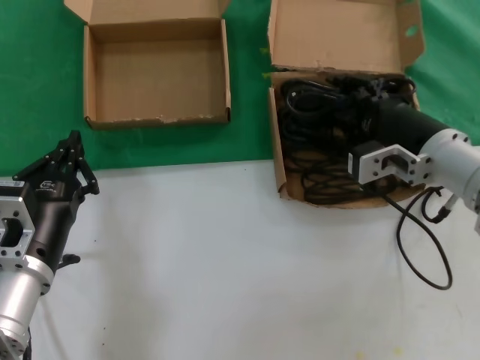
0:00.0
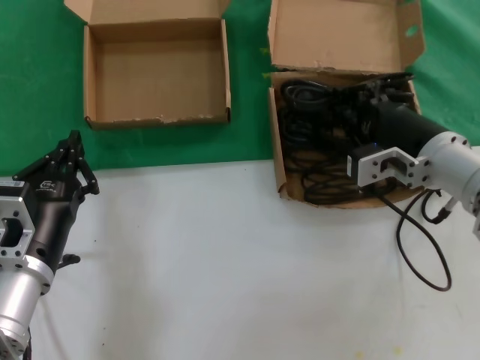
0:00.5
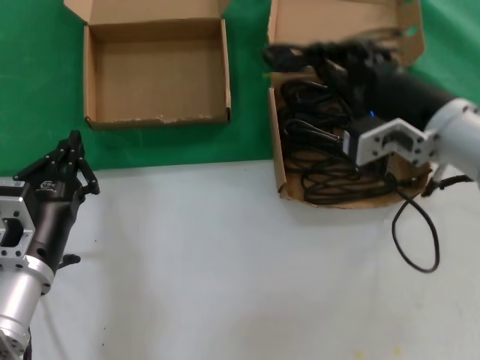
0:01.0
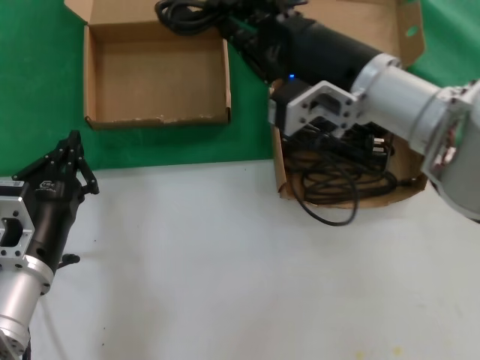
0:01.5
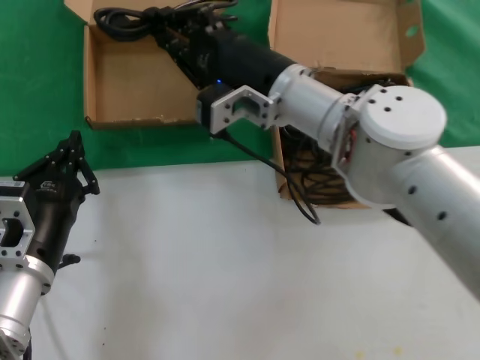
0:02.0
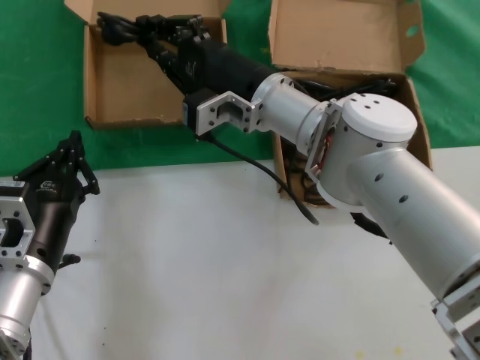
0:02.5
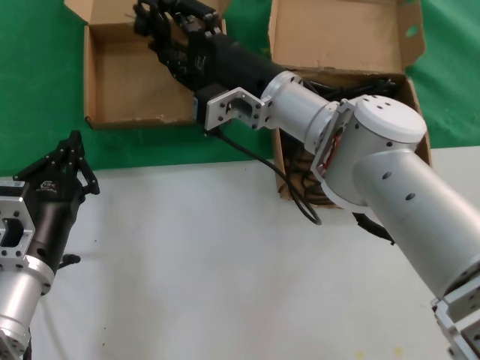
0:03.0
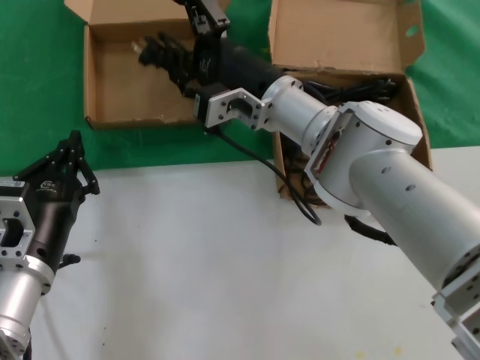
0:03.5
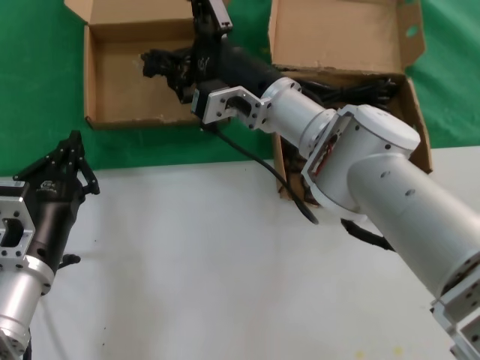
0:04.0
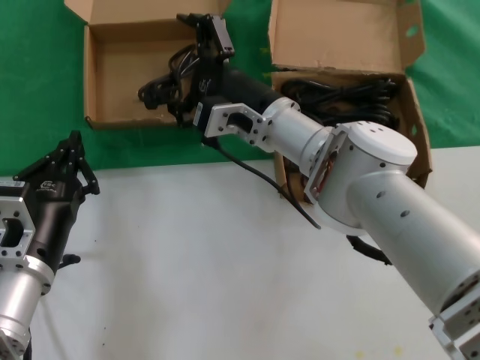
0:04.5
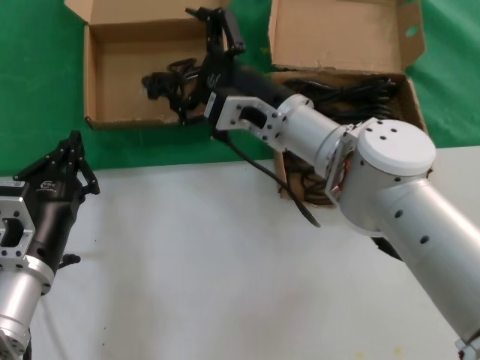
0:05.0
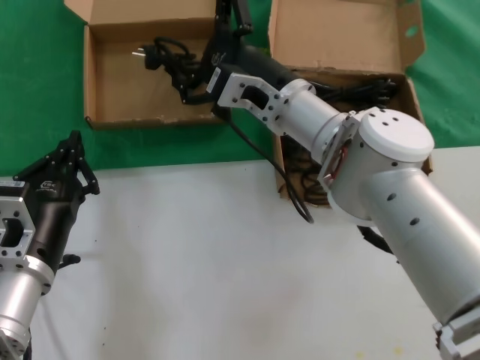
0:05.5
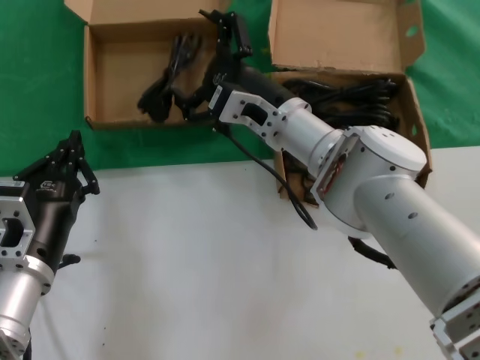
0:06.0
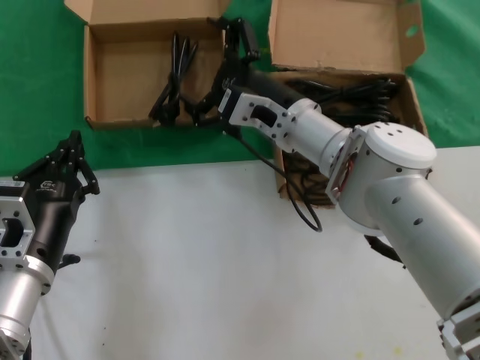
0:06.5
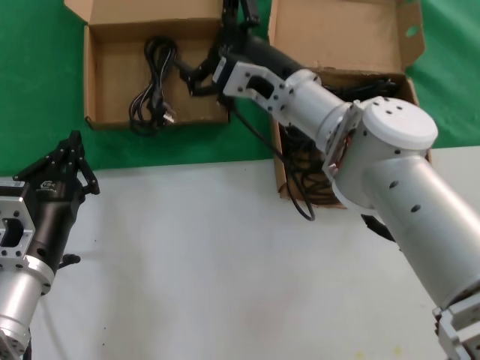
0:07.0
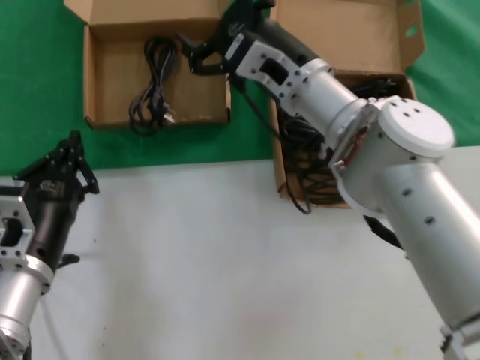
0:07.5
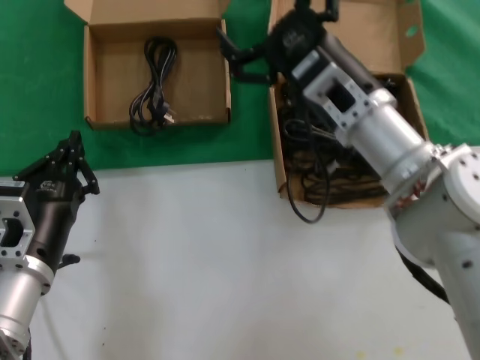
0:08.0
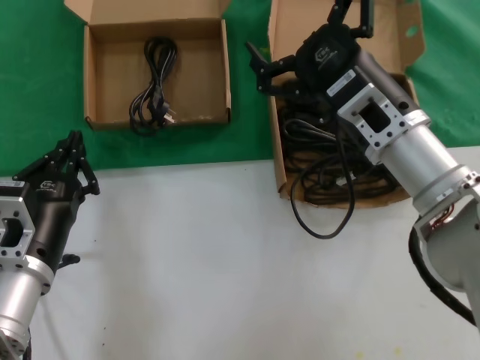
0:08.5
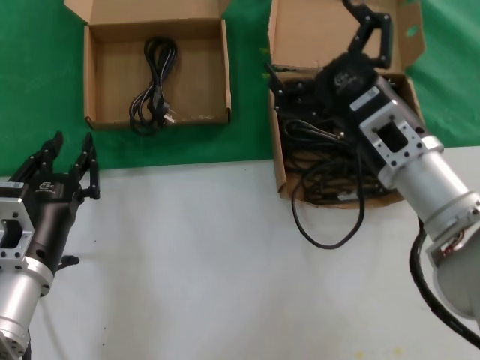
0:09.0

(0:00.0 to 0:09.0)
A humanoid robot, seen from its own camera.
Task of the whole recording: take the parts from the box containing them and put them into an empty box.
Step, 0:01.0 - 0:06.5: Place the data cable in the another box.
0:00.0 - 0:02.0: The right hand travels to the left by roughly 15 cm.
0:02.0 - 0:04.5: The right hand shifts some 5 cm downward.
0:04.5 - 0:07.0: There are only small adjustments of the hands.
0:07.0 - 0:09.0: The right hand moves backward and to the right, roughly 15 cm.

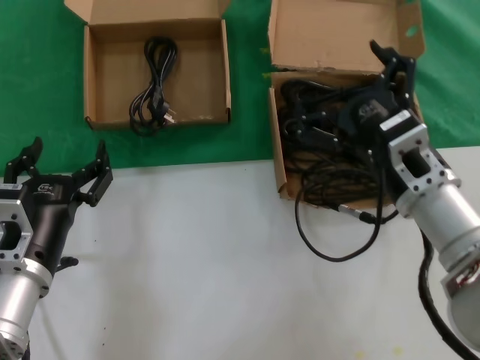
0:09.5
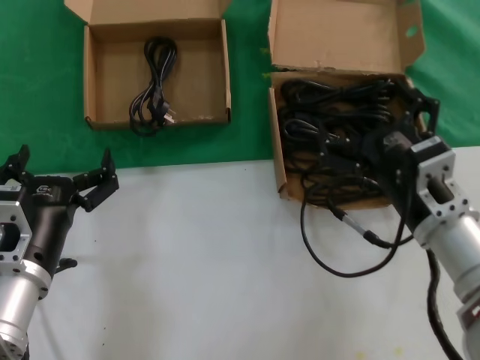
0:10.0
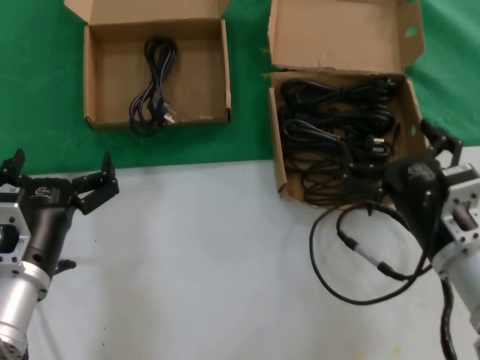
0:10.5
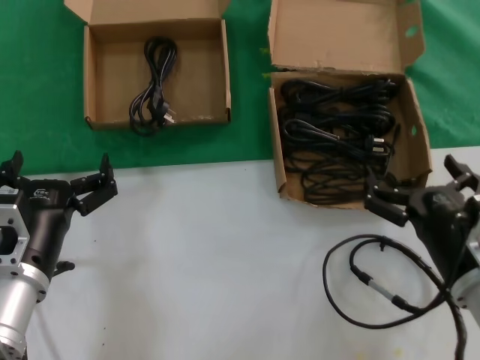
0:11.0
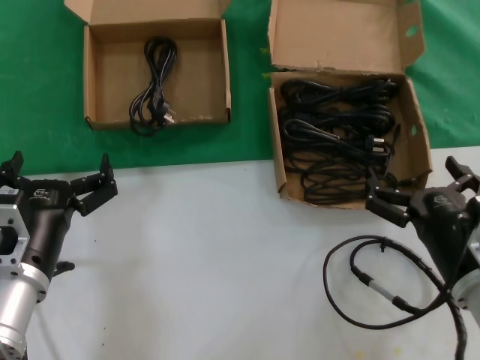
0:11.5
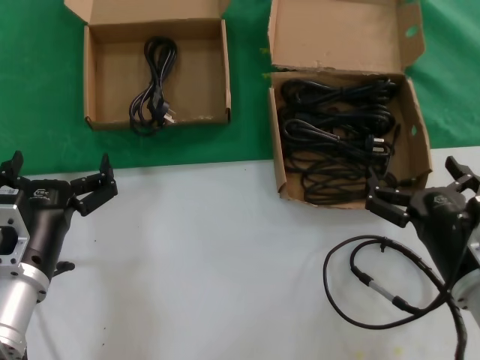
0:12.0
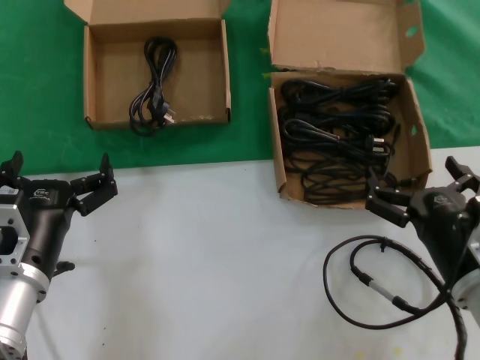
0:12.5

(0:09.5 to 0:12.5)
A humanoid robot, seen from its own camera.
Task of the whole recording: take the parts from the box containing them and put them into an empty box.
0:09.5 - 0:11.0: The right hand heads backward, downward and to the right, covering approximately 10 cm.
0:11.0 - 0:12.5: Both hands stay put.

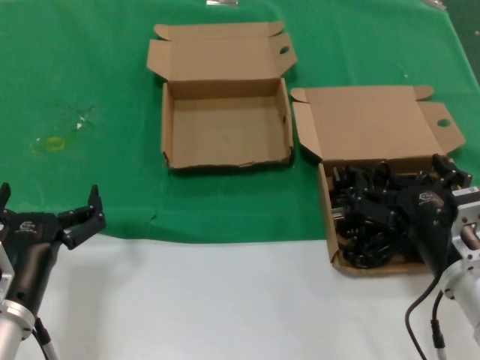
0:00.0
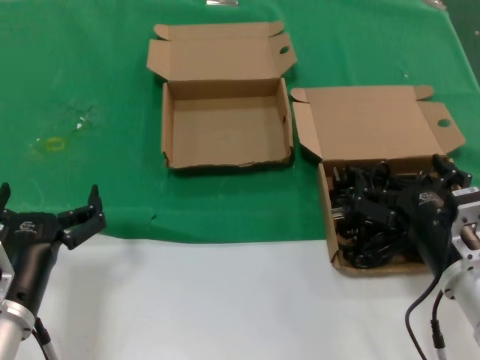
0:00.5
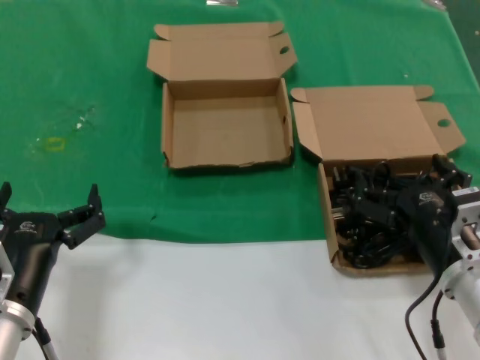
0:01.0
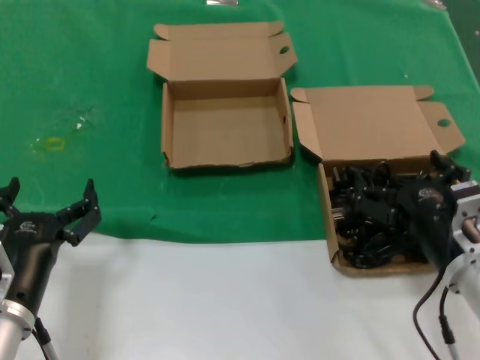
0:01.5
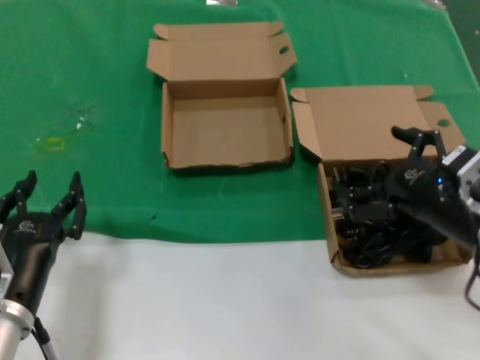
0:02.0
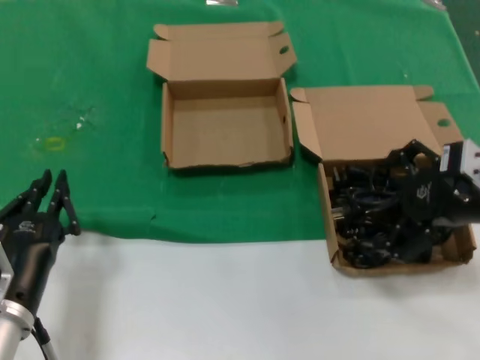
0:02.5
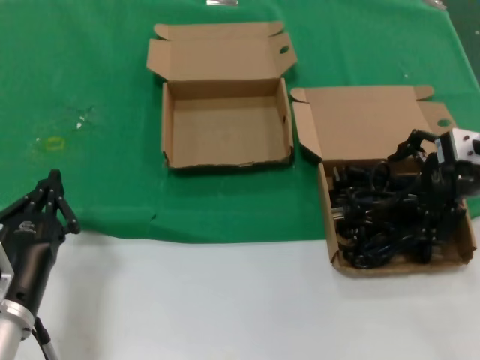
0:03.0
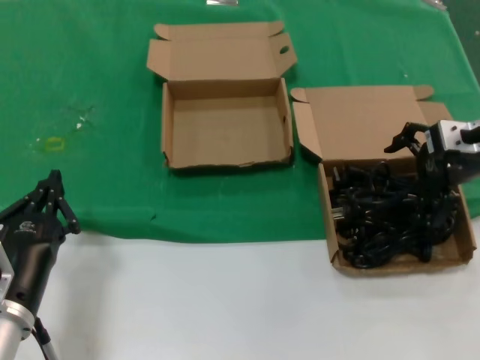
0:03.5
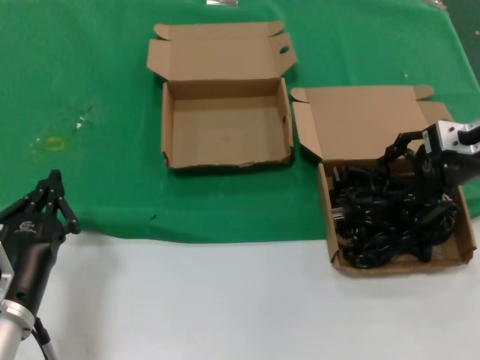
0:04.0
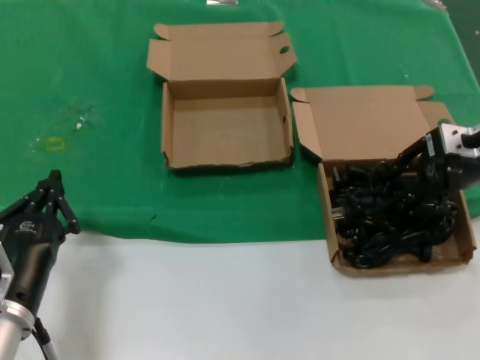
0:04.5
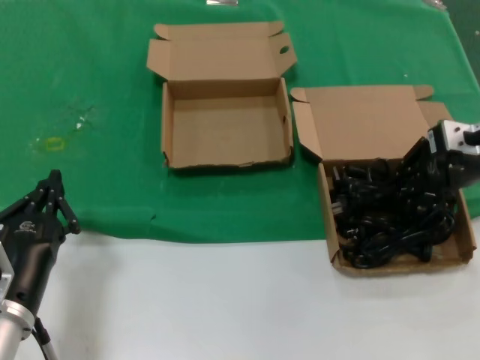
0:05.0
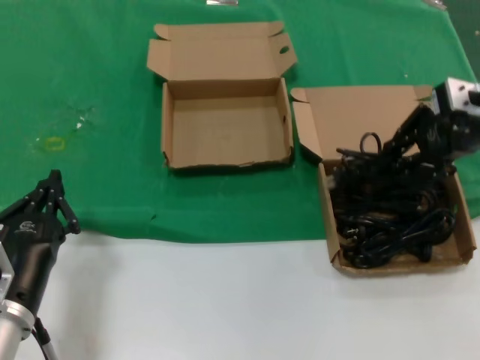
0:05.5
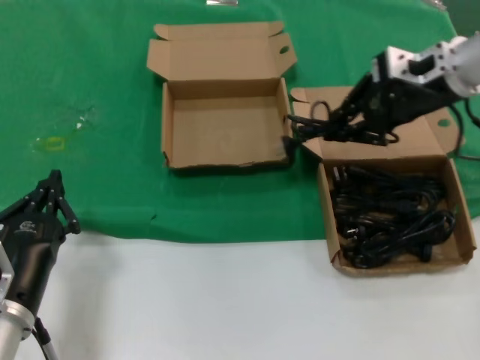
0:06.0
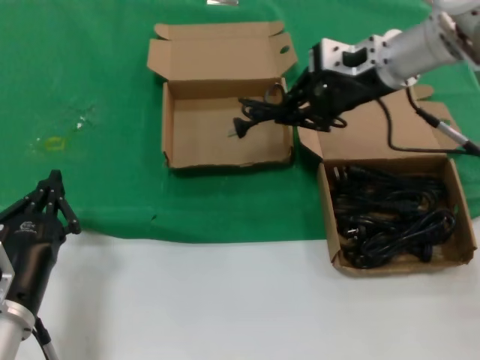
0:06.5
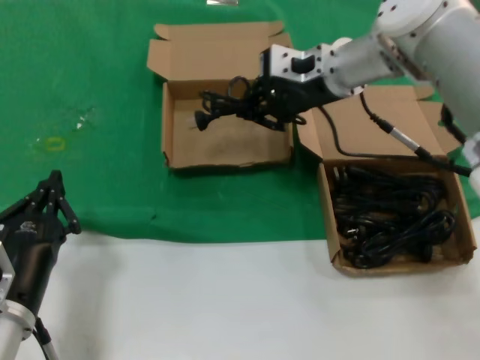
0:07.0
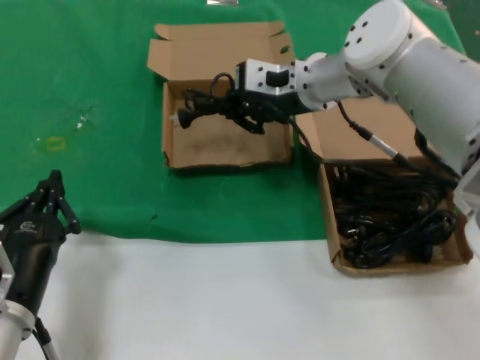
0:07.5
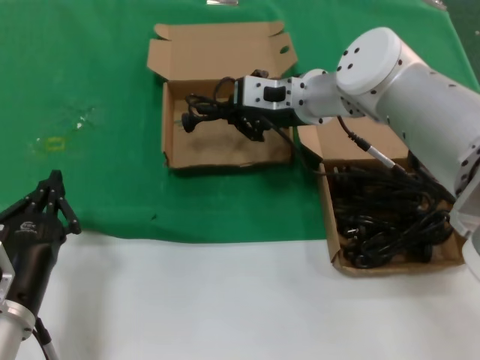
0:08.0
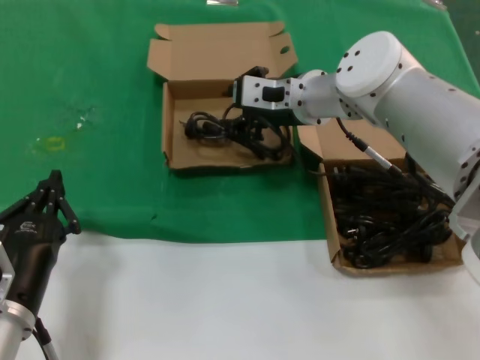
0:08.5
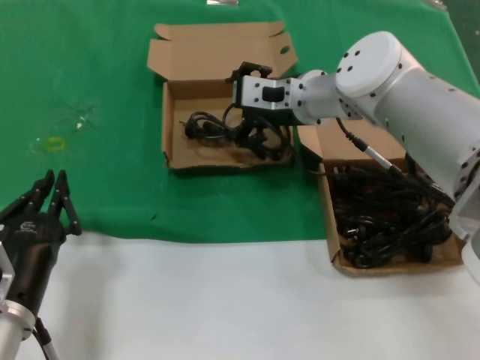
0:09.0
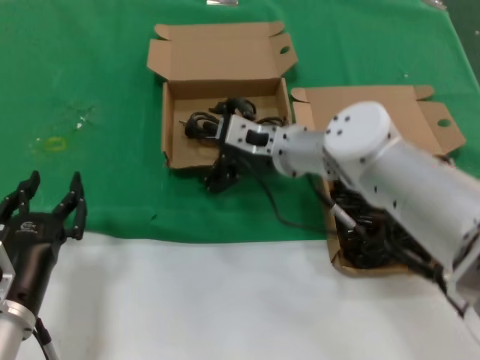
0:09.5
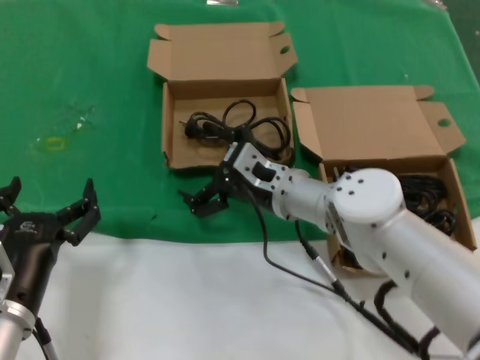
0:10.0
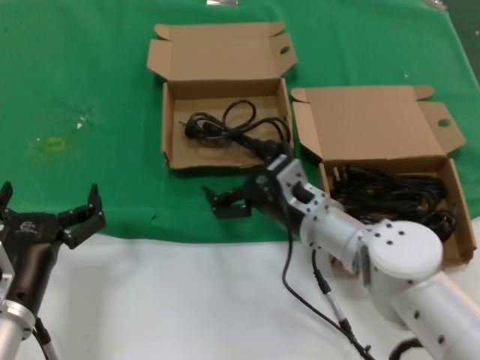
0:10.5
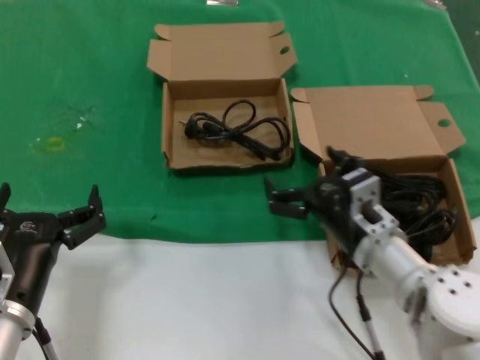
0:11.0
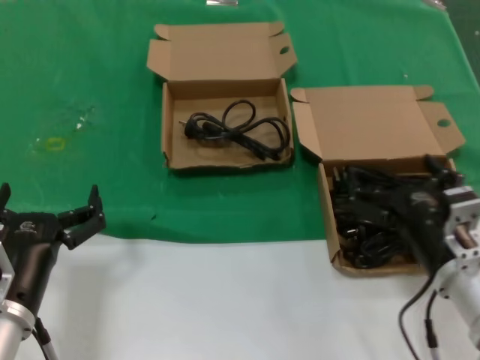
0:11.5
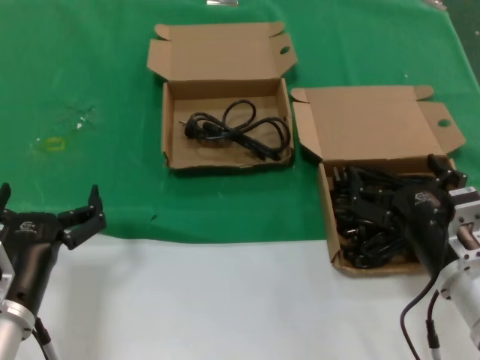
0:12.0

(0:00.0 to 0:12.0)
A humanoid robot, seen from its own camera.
Task of the whole recording: take the parts from the box containing them and put them into an empty box.
Step, 0:00.0 - 0:04.0: Grasp the data cable.
Step, 0:04.5 - 0:08.0: Place the data cable in the another box.
0:00.0 - 0:02.0: The right hand goes approximately 5 cm upward.
0:02.0 - 0:04.0: The right hand shifts about 20 cm forward and upward.
0:04.0 - 0:06.0: The right hand shifts roughly 10 cm upward and to the left.
0:06.0 - 0:08.0: The right hand goes roughly 20 cm to the left and downward.
0:08.0 - 0:10.0: The right hand moves downward and backward, approximately 15 cm.
0:10.0 - 0:12.0: The right hand heads backward and to the right, covering approximately 25 cm.

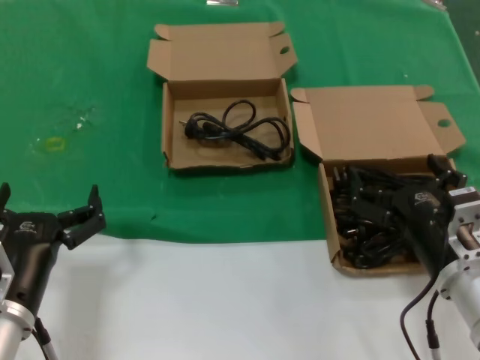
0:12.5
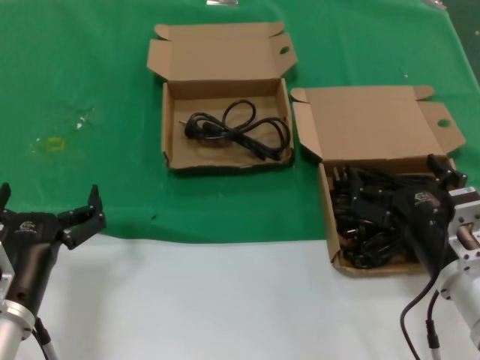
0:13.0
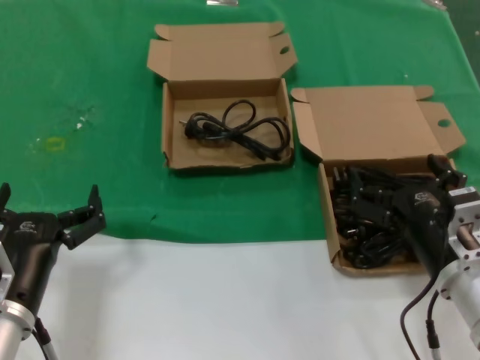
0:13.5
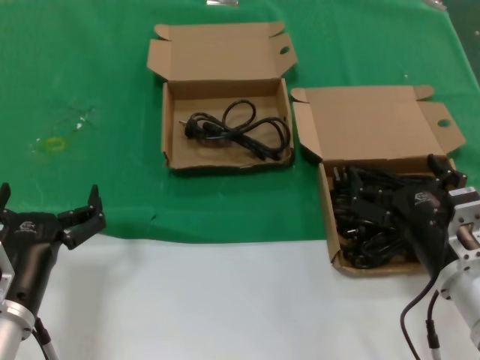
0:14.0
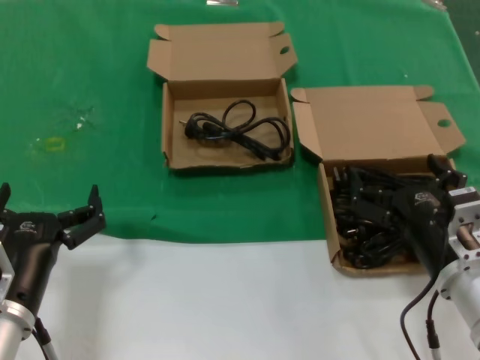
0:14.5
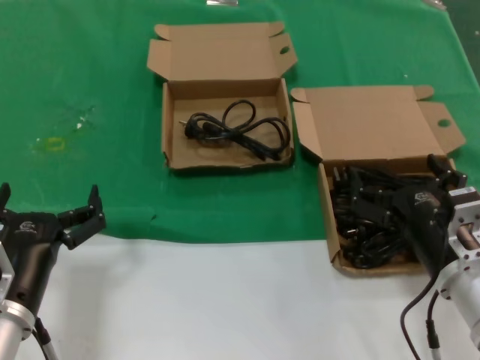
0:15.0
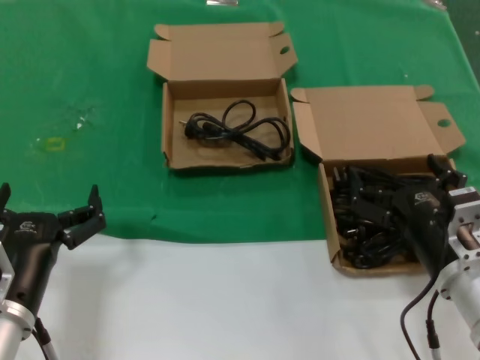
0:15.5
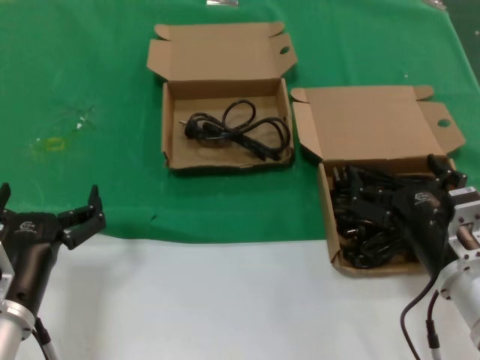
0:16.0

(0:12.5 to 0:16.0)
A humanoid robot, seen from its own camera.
Task of the whole recording: take the parts from the box containing them and put them into an empty box.
0:12.5 - 0:16.0: Both hands stay put.
